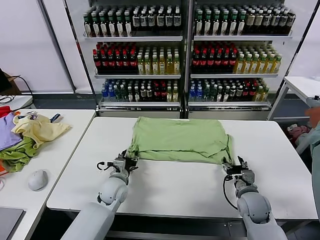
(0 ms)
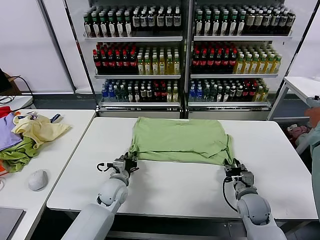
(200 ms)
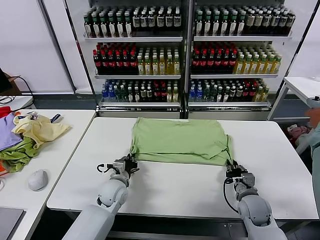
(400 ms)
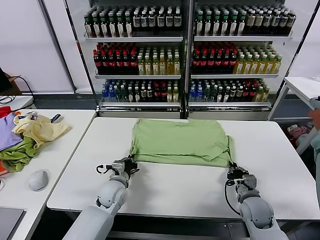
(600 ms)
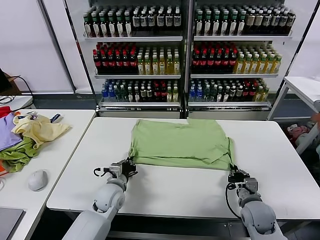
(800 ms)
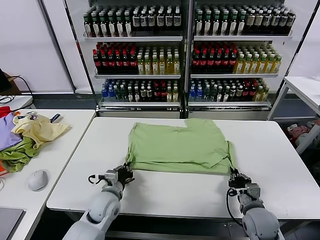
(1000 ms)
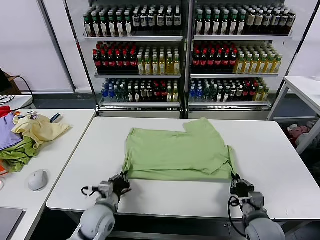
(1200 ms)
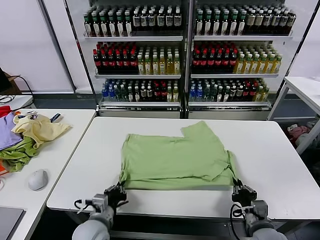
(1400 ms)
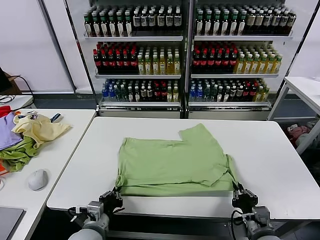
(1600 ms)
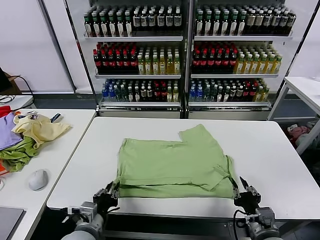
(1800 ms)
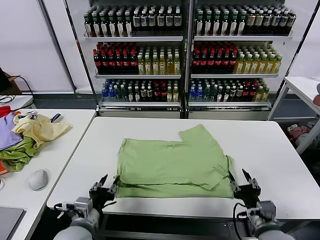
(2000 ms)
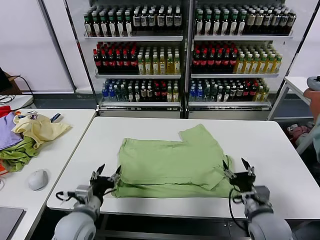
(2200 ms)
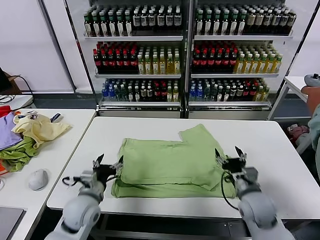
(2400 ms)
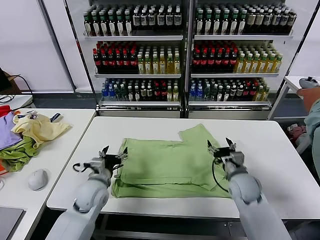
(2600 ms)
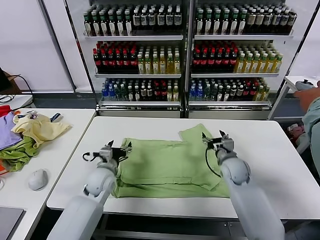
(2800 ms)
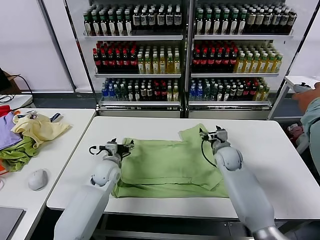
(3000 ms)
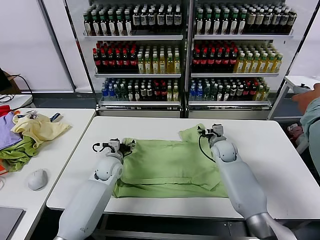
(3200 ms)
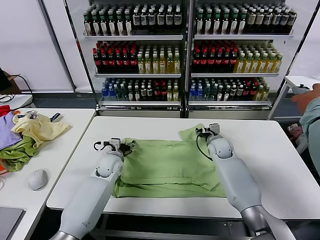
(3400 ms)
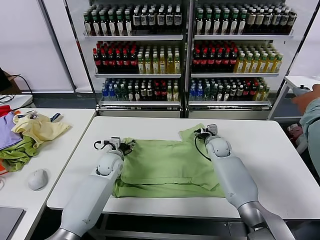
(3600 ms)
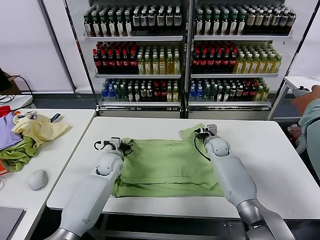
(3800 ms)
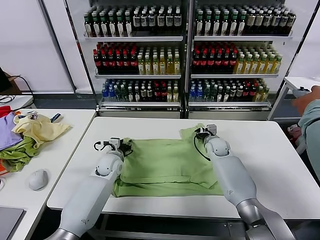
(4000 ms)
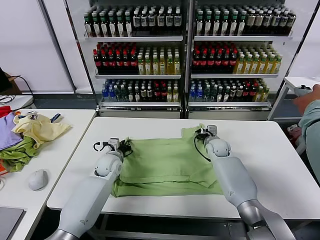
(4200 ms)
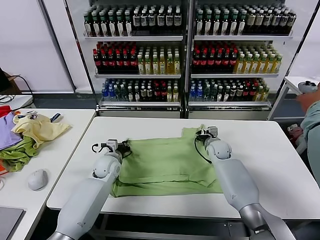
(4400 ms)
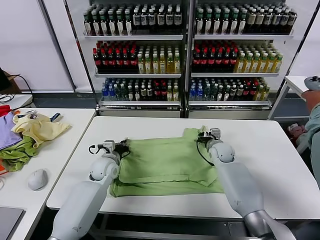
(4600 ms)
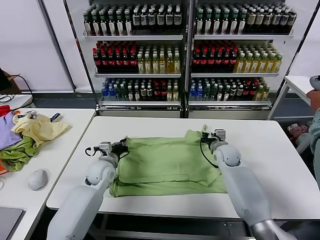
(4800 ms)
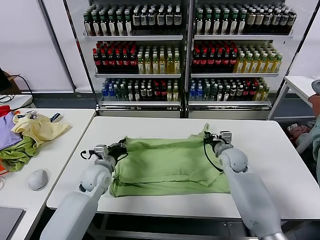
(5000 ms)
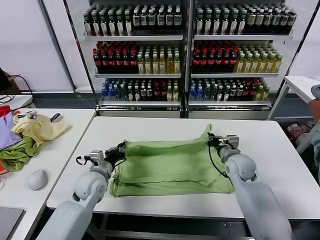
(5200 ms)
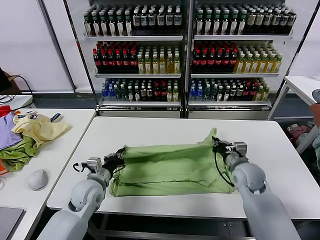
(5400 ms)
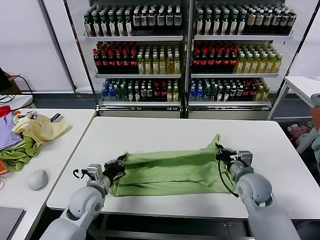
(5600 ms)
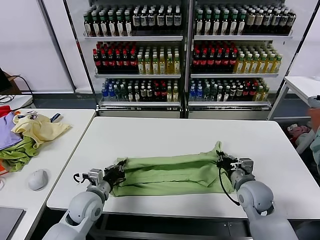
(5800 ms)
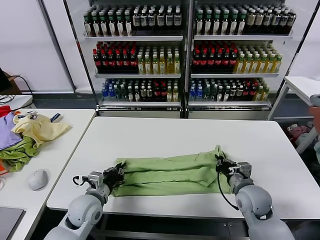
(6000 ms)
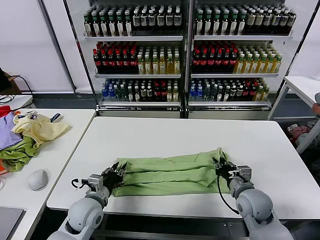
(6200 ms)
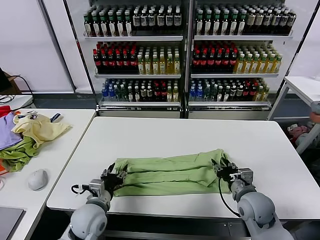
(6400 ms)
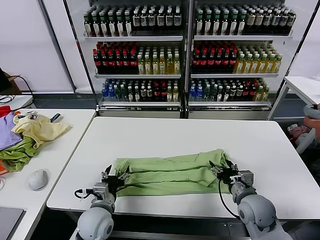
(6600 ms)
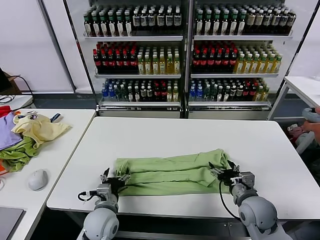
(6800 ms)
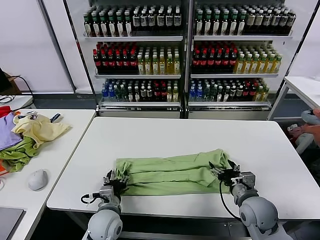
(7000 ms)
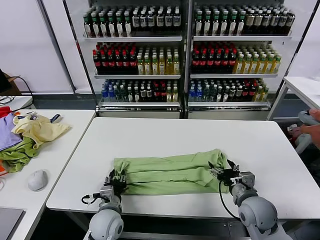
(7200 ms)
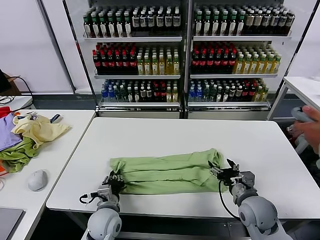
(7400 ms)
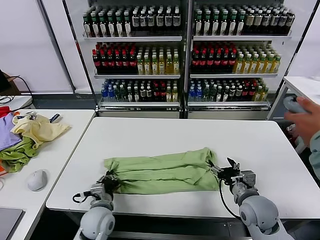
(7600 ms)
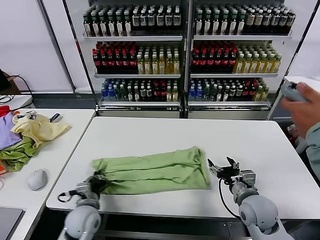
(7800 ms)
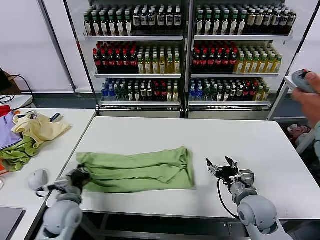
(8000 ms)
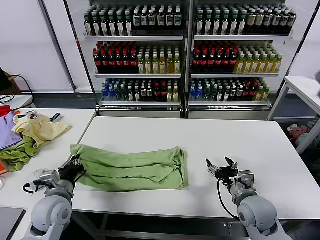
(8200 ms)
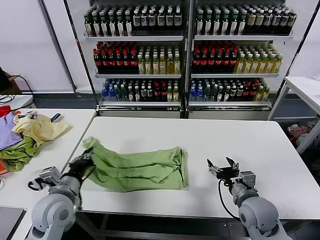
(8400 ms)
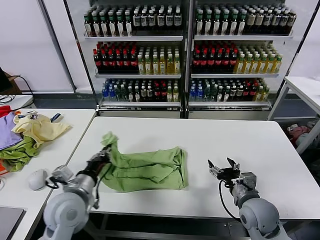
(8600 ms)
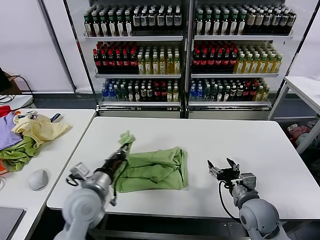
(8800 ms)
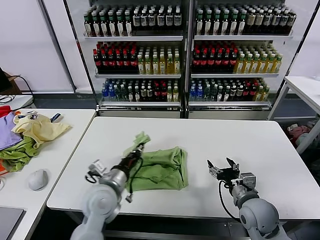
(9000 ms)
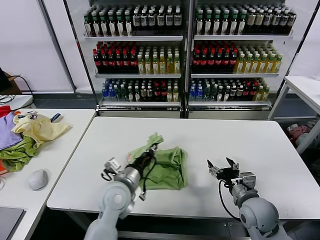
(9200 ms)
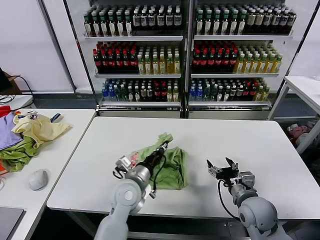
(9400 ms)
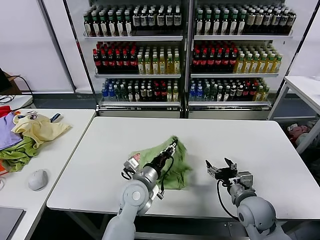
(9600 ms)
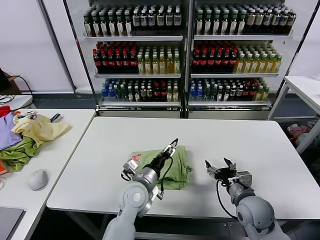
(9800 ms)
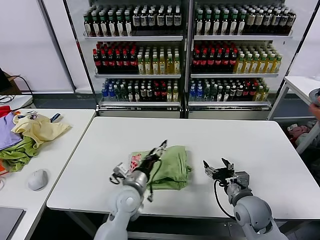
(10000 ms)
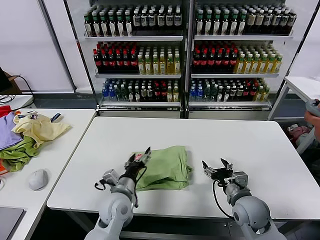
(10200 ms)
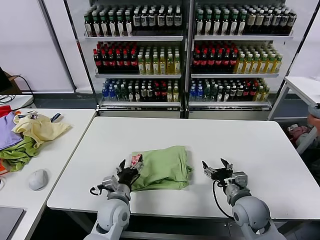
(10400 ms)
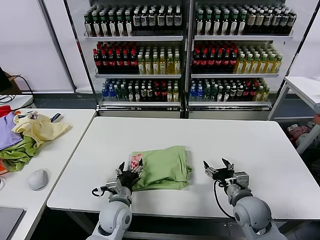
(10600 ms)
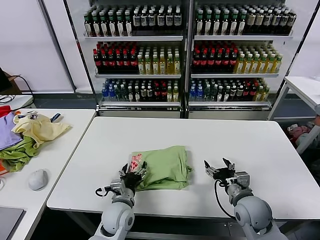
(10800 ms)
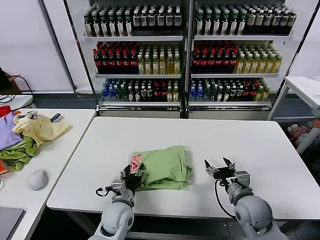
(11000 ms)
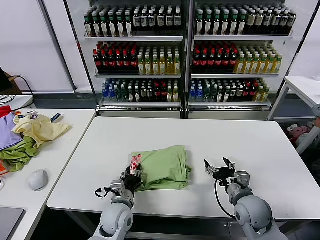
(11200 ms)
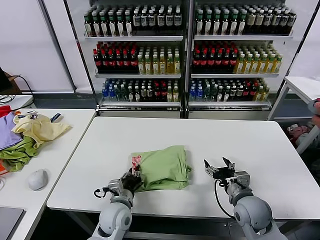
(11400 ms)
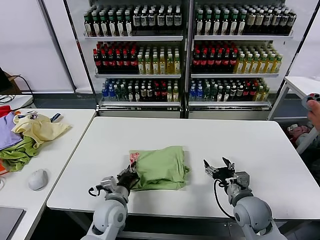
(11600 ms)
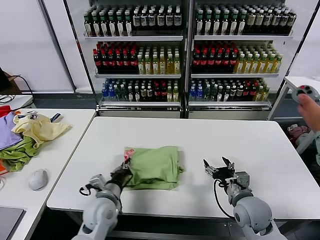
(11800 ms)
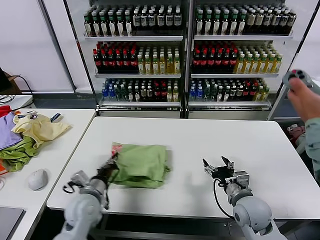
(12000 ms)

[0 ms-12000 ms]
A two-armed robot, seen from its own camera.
Task of the whole recording: fold and organize the clothes.
Step, 0 ms to 1800 ms: Drag the clothes downward with both gripper.
Step, 2000 ms to 4200 ms: use both grippers simultaneously to clamp the upper edge of the clothing fabric.
Step, 4600 ms to 6400 ms: use both grippers to drag the upper edge of the fabric backward and fold it over the lower edge.
Step, 6600 ms to 7400 ms: use the left gripper to clamp the left edge of the fabric.
Step, 7600 ms to 9600 ms: use the left gripper to drag the left edge of the fabric to the left and folds it over the right edge.
0 ms to 1600 ms: Both grippers travel together backward, approximately 15 cm. The left gripper closes up.
1600 ms to 3000 ms: The two grippers go roughly 30 cm forward. The left gripper opens its fingers. Meanwhile the right gripper opens up.
3000 ms to 4400 ms: The right gripper closes its fingers. The left gripper closes up.
4400 ms to 6000 ms: The grippers both shift backward by about 20 cm.
6000 ms to 7600 ms: The right gripper opens its fingers. Meanwhile the left gripper ends up roughly 5 cm from where it was, and opens, then closes again.
7600 ms to 9000 ms: The left gripper heads upward, covering about 10 cm, and goes to the left and returns, approximately 10 cm each way.
9000 ms to 10400 ms: The left gripper goes some 10 cm downward, and opens up.
10400 ms to 12000 ms: The left gripper moves to the left, approximately 10 cm, and closes.

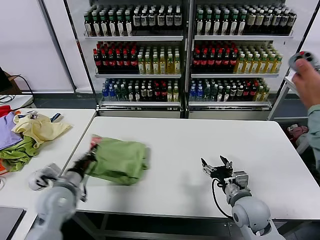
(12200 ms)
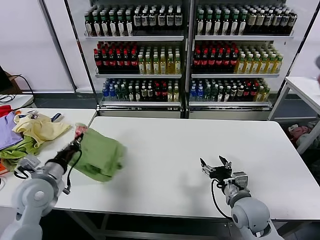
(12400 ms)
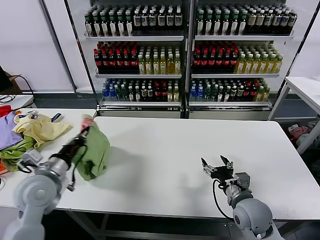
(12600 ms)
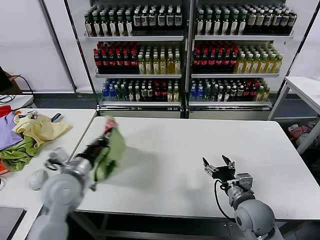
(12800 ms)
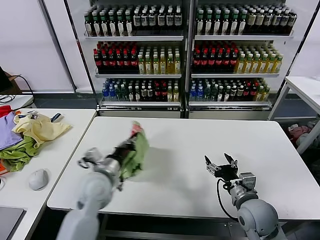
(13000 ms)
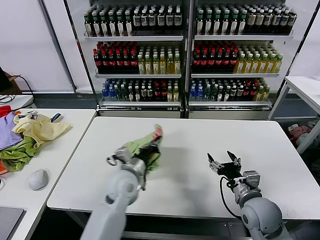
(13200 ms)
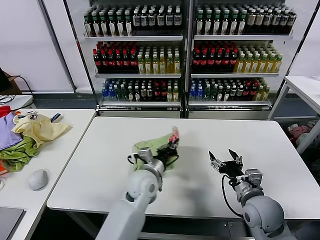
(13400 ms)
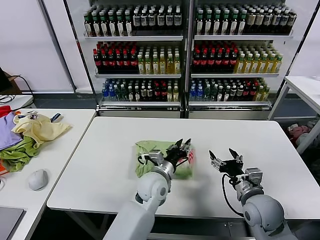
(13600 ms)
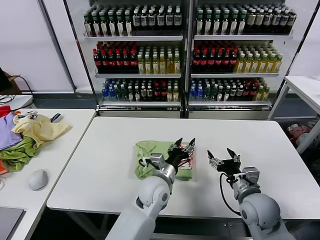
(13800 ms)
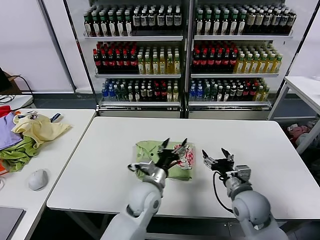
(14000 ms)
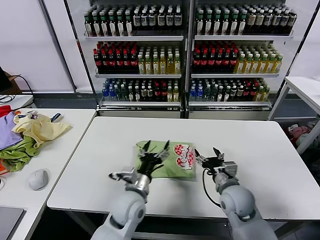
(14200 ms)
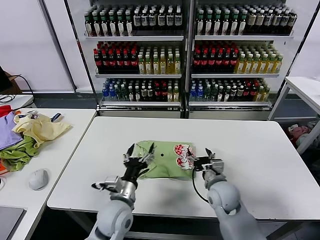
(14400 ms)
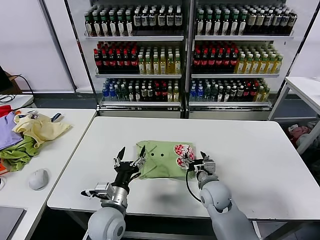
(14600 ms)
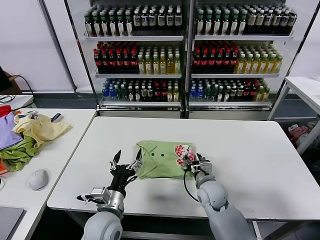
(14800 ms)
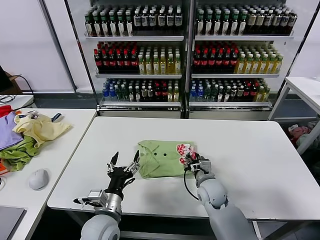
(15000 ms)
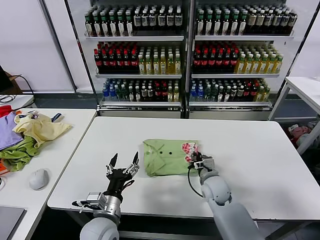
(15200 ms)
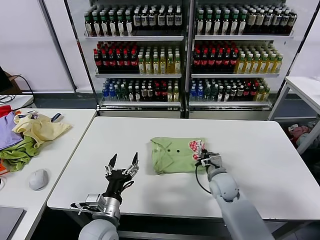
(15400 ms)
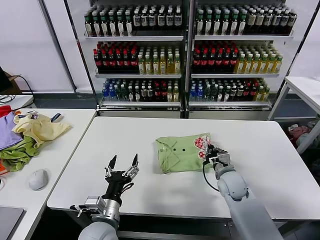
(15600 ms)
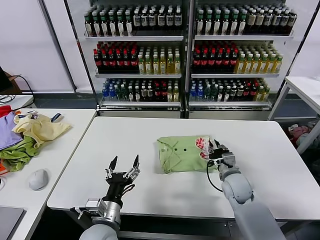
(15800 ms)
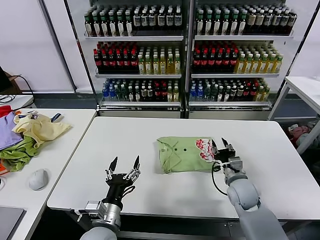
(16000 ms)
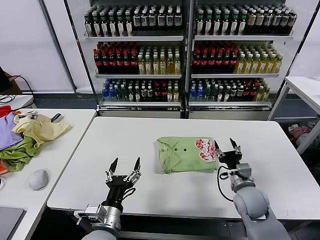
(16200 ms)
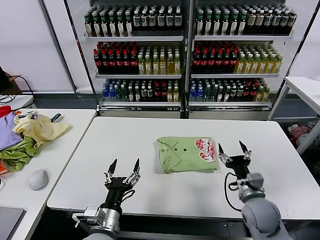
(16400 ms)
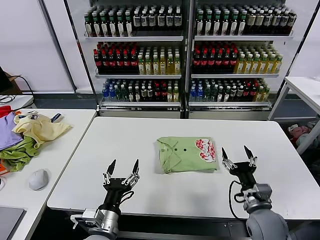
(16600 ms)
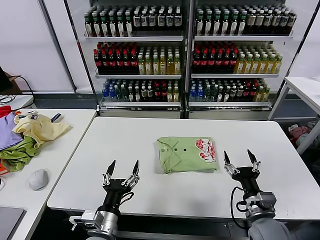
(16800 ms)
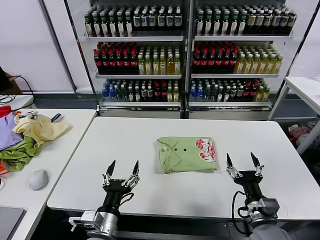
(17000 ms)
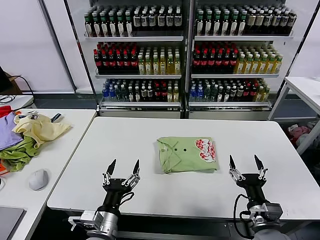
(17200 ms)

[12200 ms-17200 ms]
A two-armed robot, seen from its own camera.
Task of the whole recording: fold and organize the clothes.
Step, 13800 ms to 15800 ms: Drag the clothes to the center of the table.
12200 ms to 13800 ms: The left gripper shifts approximately 30 cm to the right, and opens its fingers.
13800 ms to 15600 ms: The right gripper travels forward and downward by some 10 cm, and closes its fingers. Meanwhile the left gripper is displaced to the left and backward by approximately 20 cm, and opens.
15600 ms to 17200 ms: The left gripper moves about 5 cm. Meanwhile the right gripper travels backward by approximately 20 cm, and opens its fingers.
